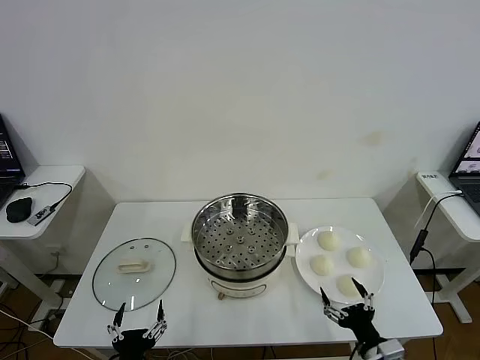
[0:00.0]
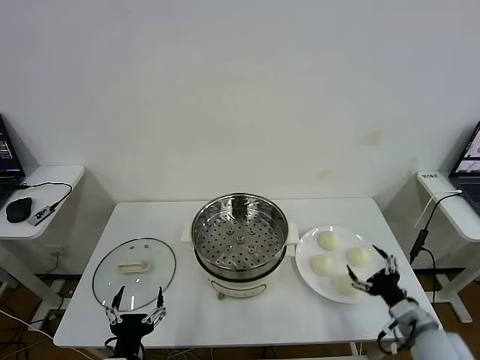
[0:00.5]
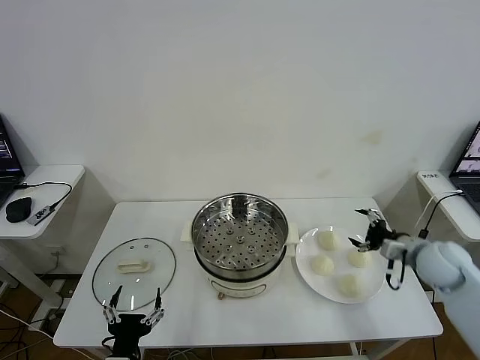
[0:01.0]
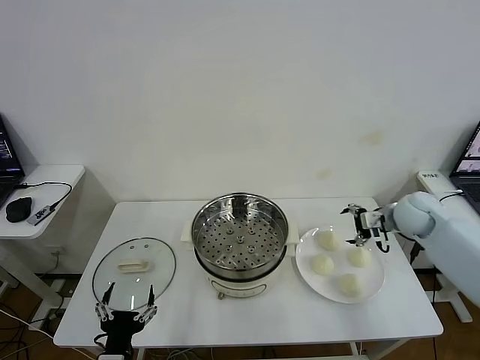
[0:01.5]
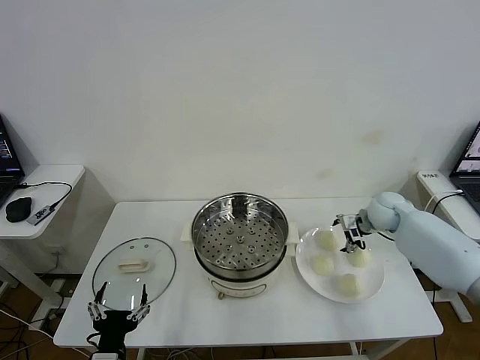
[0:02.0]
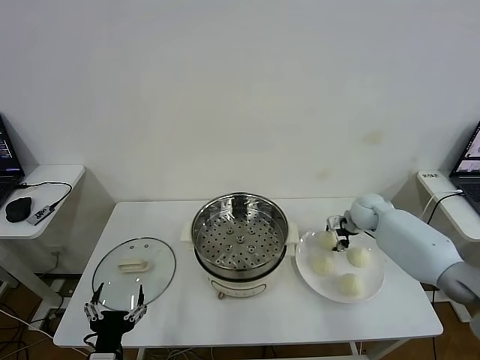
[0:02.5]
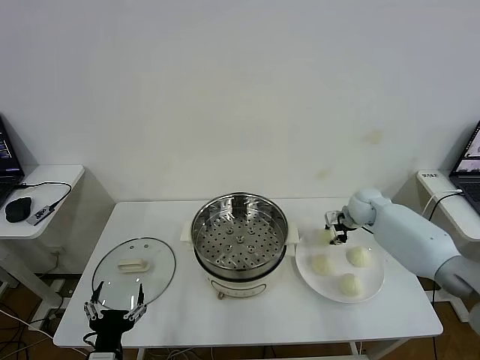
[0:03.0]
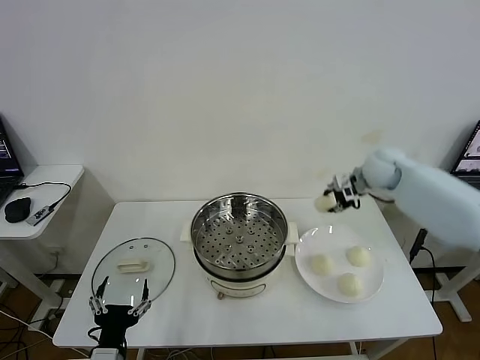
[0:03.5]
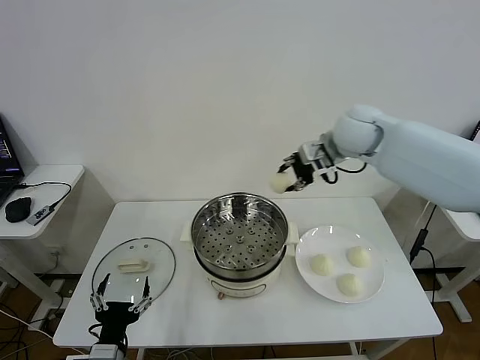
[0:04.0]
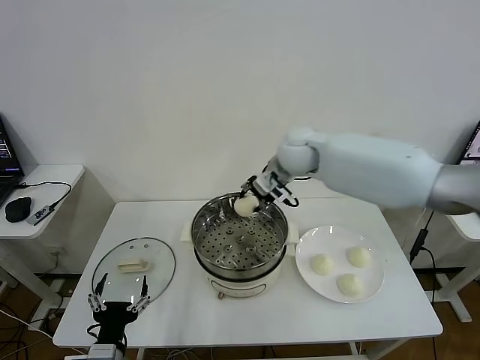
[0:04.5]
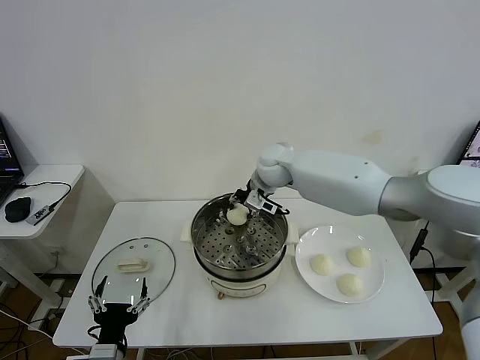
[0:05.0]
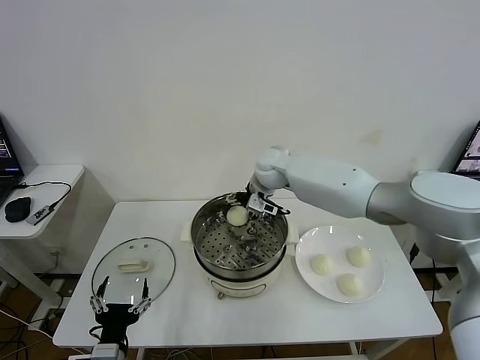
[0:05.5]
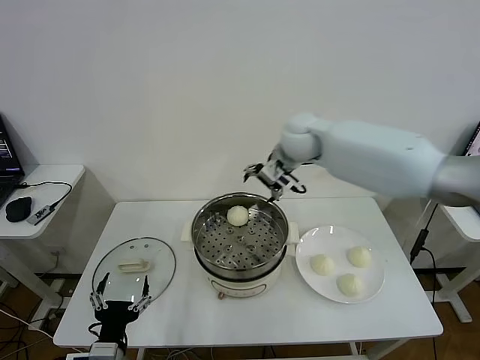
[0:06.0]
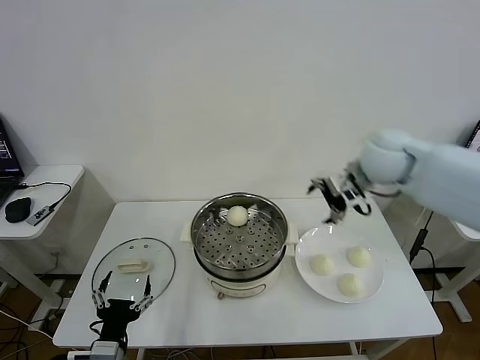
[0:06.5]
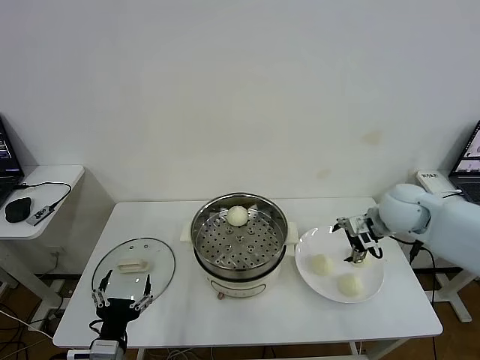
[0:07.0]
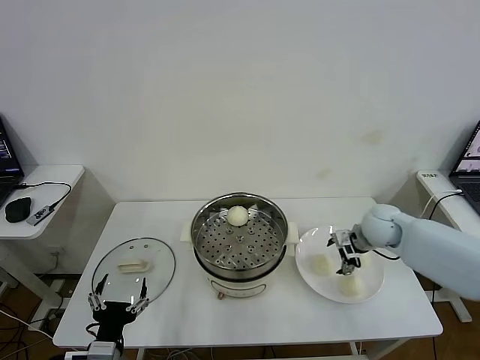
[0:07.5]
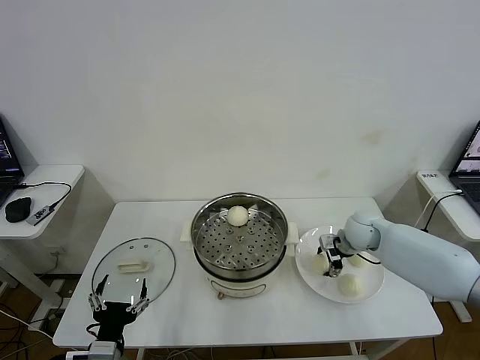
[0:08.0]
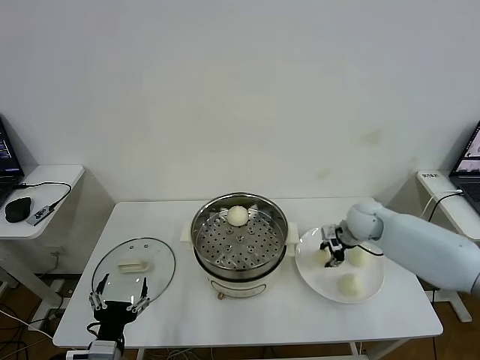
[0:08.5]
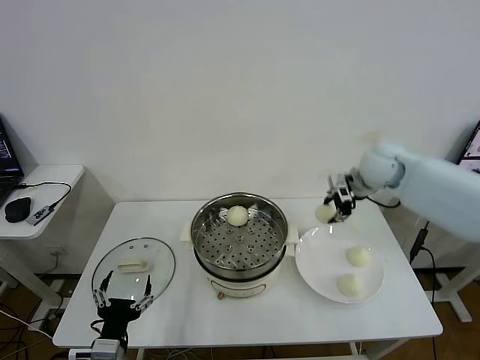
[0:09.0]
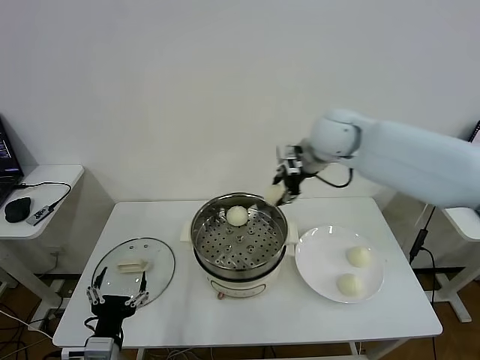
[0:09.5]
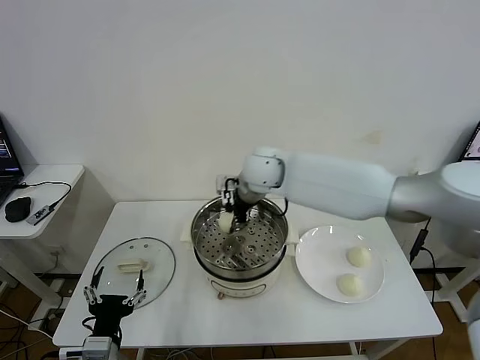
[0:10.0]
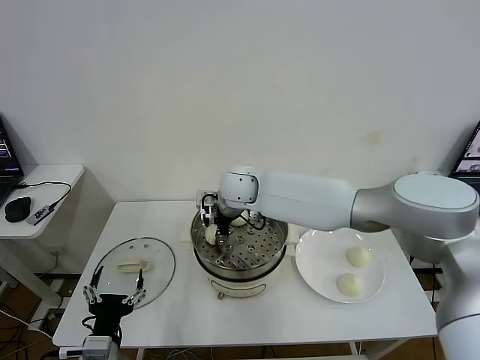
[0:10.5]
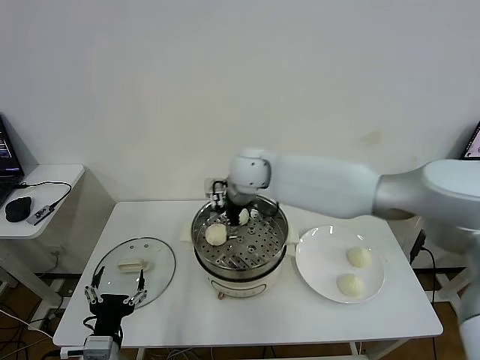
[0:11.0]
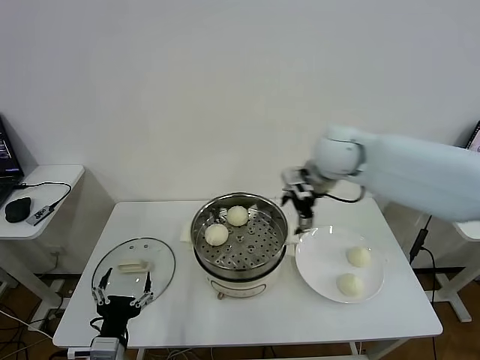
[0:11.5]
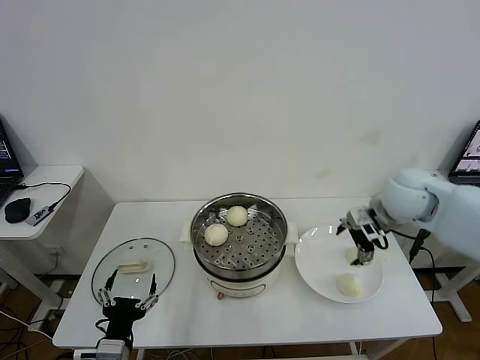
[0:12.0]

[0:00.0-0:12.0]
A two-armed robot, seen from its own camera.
Task of the whole recording: take steamed baozi put them in steamer then cover it.
Step, 0:00.0 to 0:02.5: Grasp the baozi in the plate with right gripper.
Step, 0:03.0 to 0:05.5: Place the baozi on the steamer with right gripper.
Step, 0:06.0 to 0:08.0: Grasp the baozi in the plate with right gripper.
Step, 0:08.5 to 0:10.5: Place the baozi on the steamer with right gripper.
0:02.0 to 0:04.0: The right gripper goes some 30 cm upward and to the left, and closes its fingers.
0:04.0 to 0:06.0: The right gripper reaches approximately 10 cm to the left, then returns, and opens up.
0:06.0 to 0:08.0: The right gripper goes some 30 cm downward and to the right, and closes up.
0:08.0 to 0:10.0: The right gripper travels to the left and upward by roughly 30 cm.
0:10.0 to 0:12.0: The right gripper is displaced to the right by approximately 30 cm, and opens up.

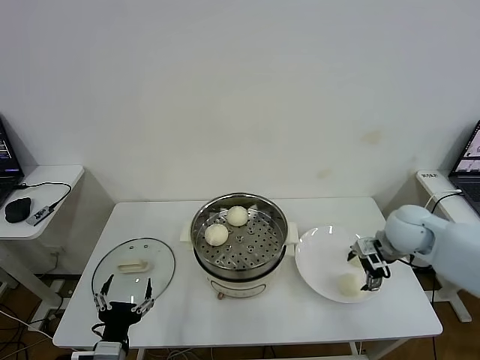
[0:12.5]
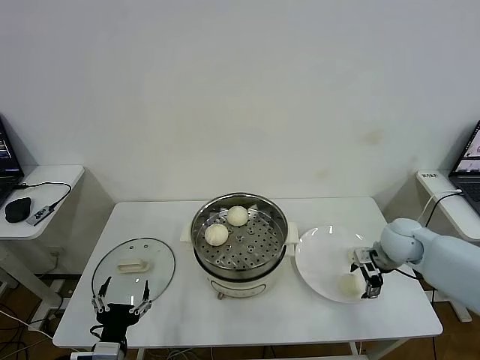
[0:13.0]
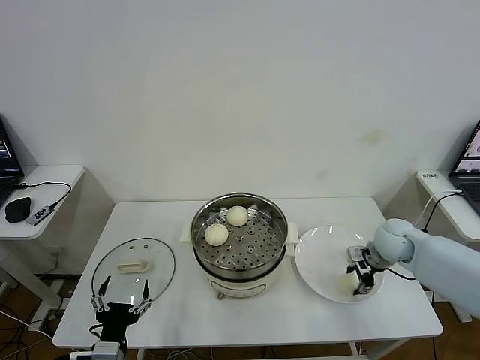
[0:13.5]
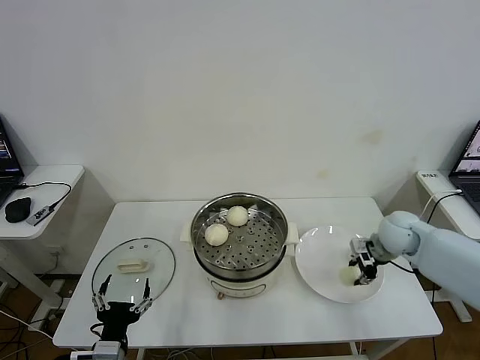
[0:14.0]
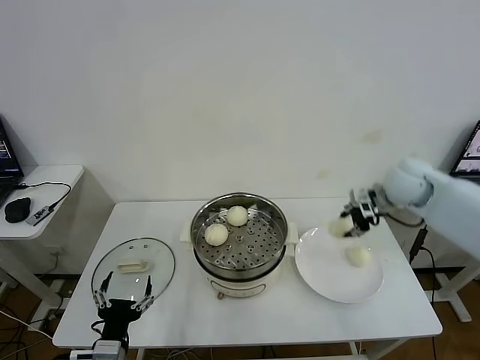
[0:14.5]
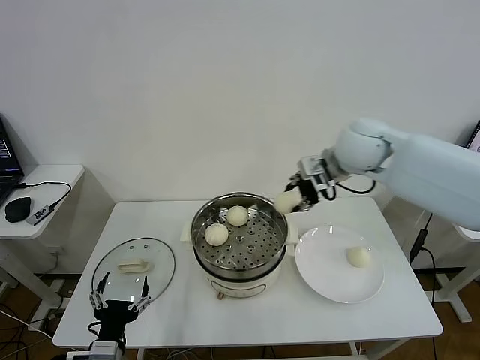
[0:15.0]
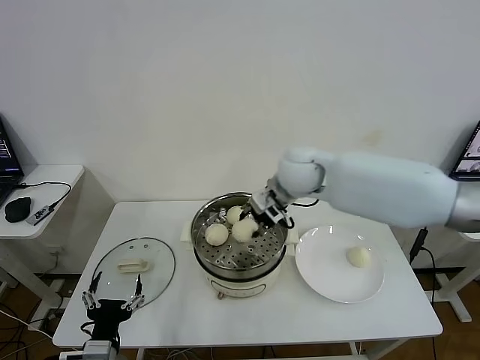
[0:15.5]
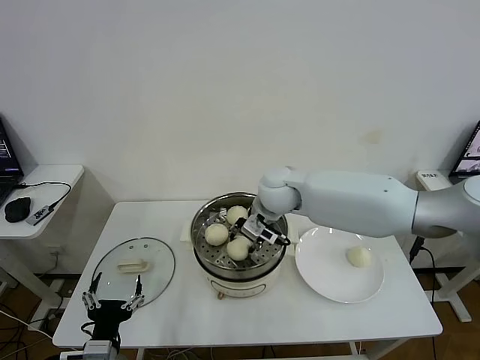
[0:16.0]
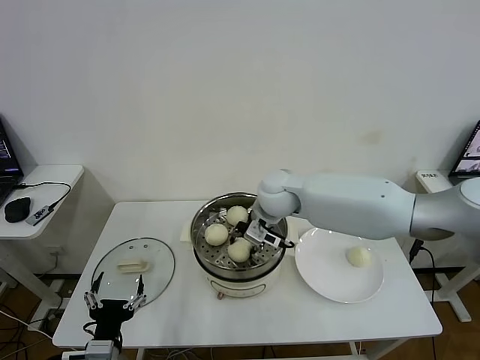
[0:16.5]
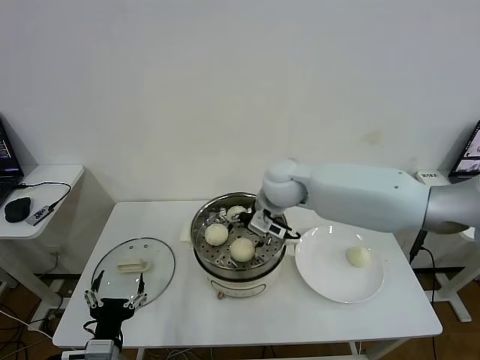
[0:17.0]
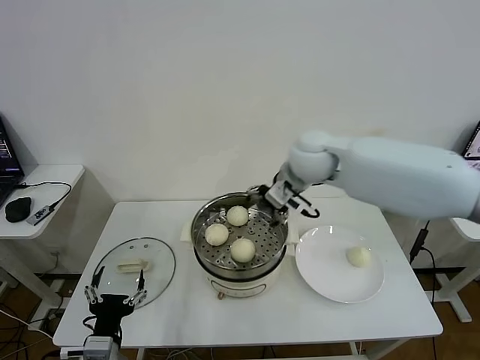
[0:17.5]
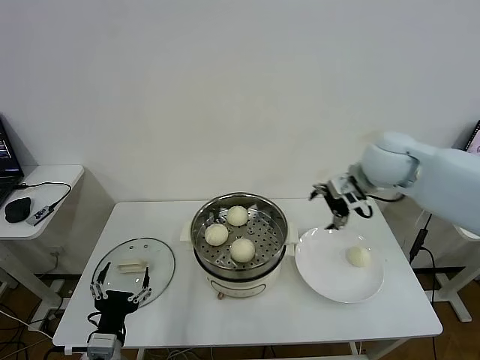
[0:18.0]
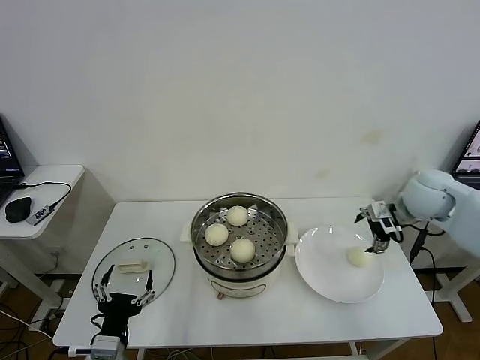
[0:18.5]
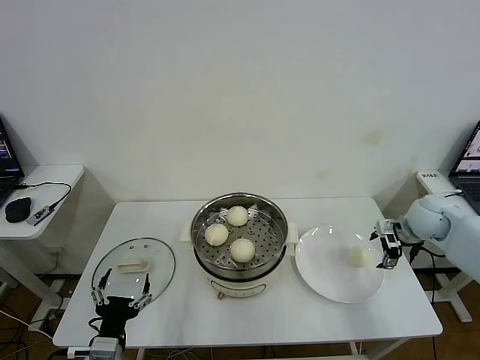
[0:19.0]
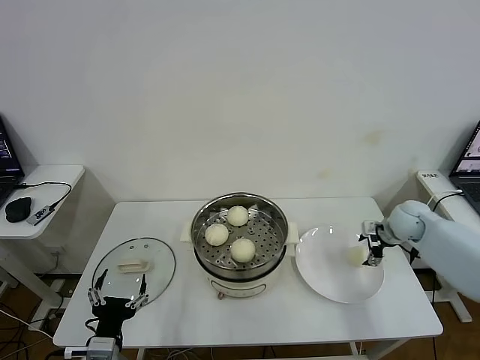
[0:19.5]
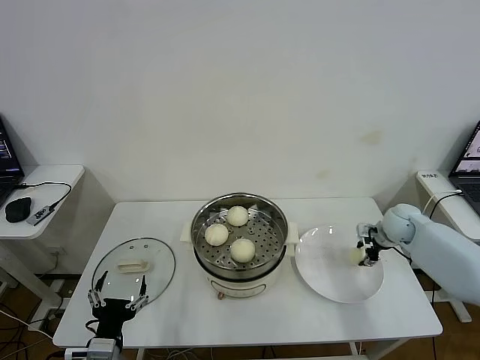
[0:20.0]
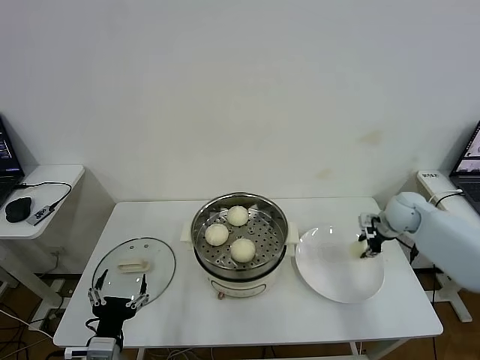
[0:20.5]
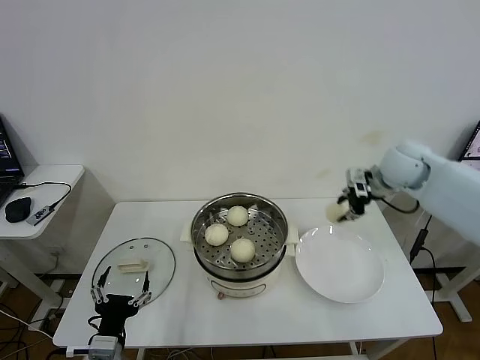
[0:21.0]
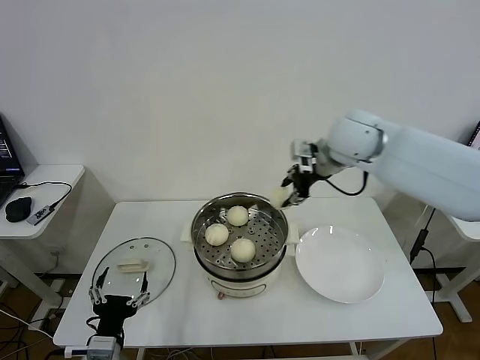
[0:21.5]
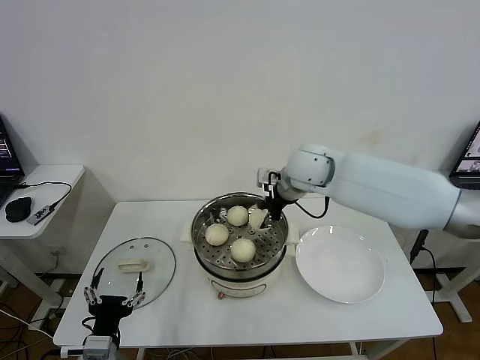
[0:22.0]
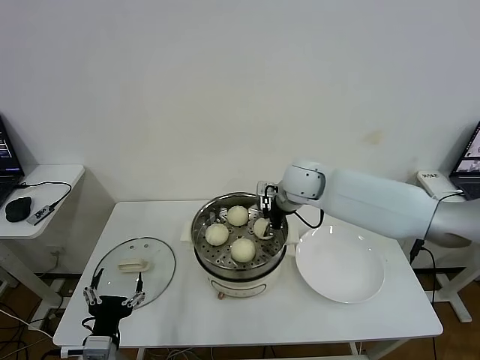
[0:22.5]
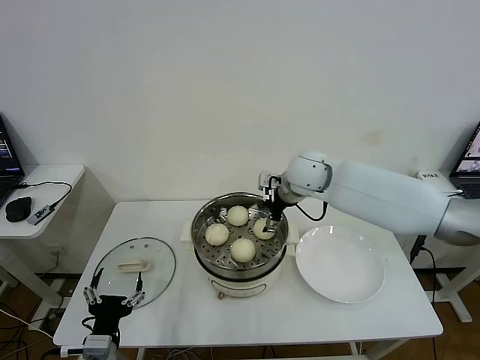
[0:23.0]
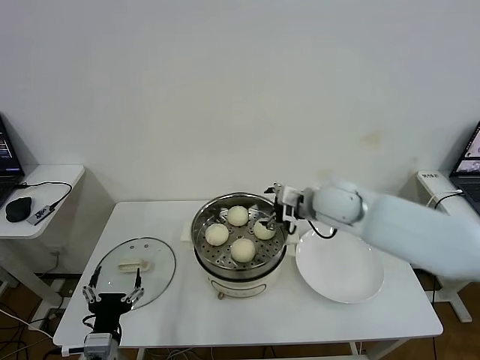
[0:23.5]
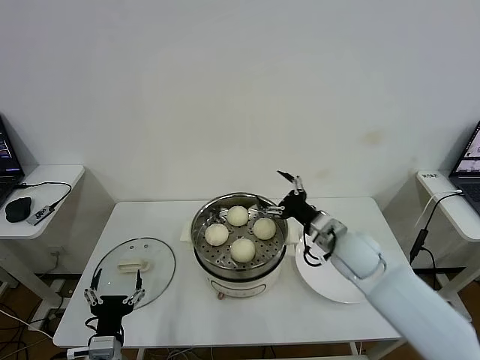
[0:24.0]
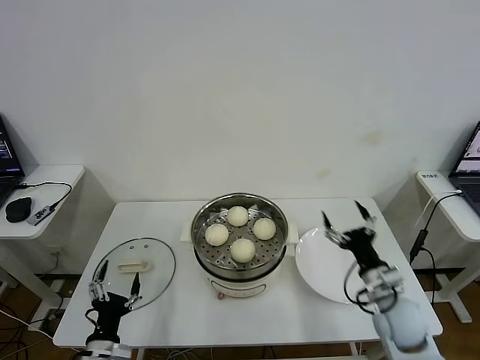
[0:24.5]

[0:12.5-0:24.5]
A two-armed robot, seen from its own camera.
Task of the whole recording: take steamed baozi put them in steamer then cover it.
Step, 0:14.0 to 0:16.5: Place the baozi on the steamer with right gripper.
Step, 0:17.5 to 0:20.0: Grasp the baozi in the plate with right gripper.
Step, 0:20.5 to 0:22.5: Place the baozi on the steamer with right gripper.
0:12.5 to 0:14.5: The right gripper is displaced upward and forward by some 15 cm, and closes.
0:14.5 to 0:16.5: The right gripper shifts about 25 cm to the left.
0:16.5 to 0:18.5: The right gripper goes roughly 30 cm to the right, and opens its fingers.
0:18.5 to 0:20.5: The right gripper moves downward and forward, some 10 cm, and closes up.
0:20.5 to 0:22.5: The right gripper moves to the left, approximately 25 cm.
0:22.5 to 0:24.5: The left gripper goes approximately 5 cm downward; the right gripper is displaced backward, to the right and downward by some 35 cm, and opens up.

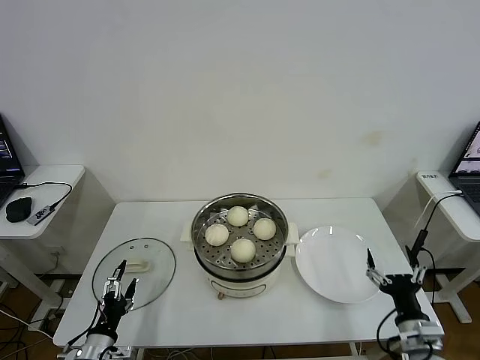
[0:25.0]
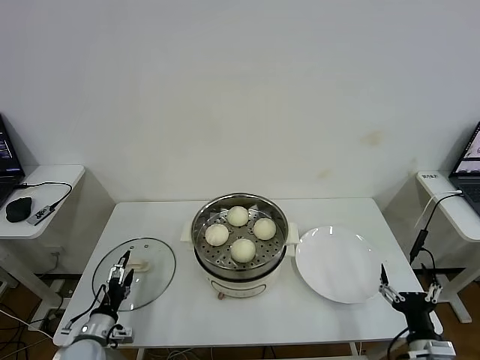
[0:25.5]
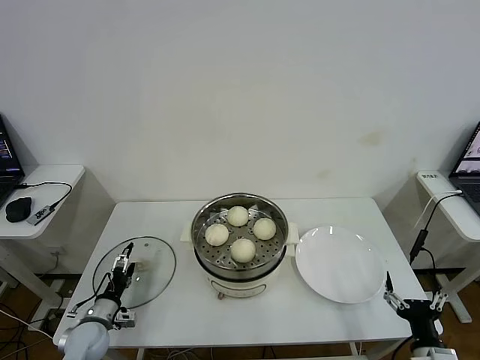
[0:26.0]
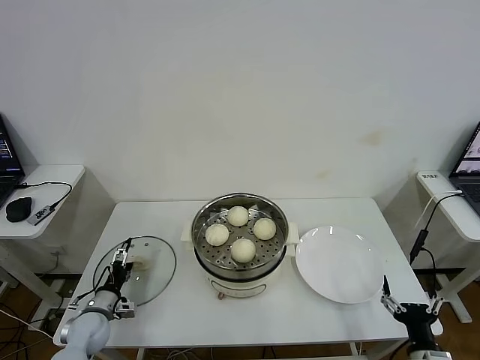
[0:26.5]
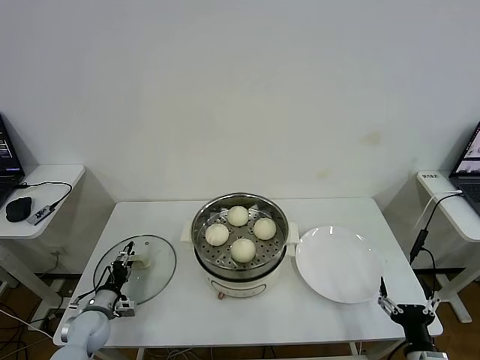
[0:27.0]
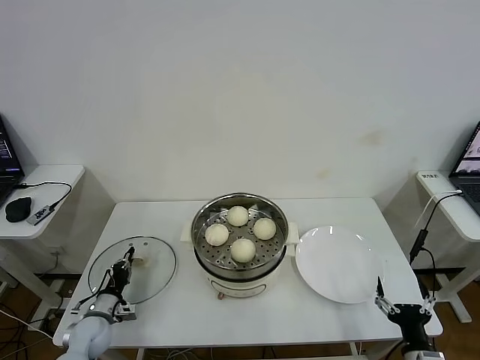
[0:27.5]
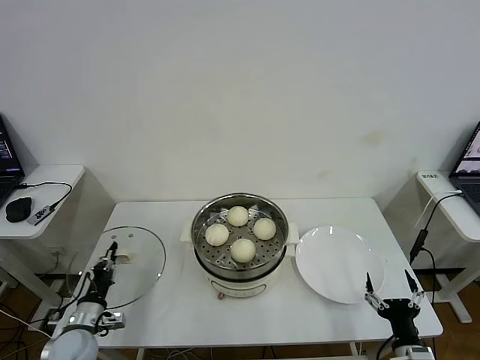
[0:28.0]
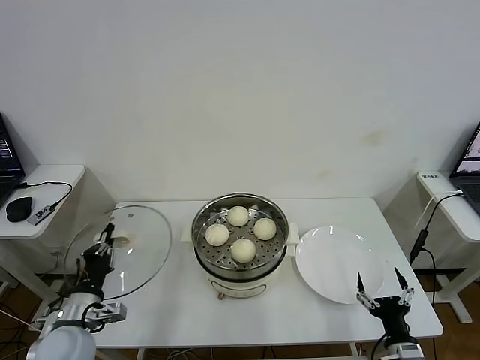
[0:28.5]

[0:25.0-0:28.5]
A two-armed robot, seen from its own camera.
Task of the whole recording: take steamed baozi put them in steamer then cover it.
Step, 0:25.0 to 0:27.5: Grasp the pot lid with left gripper.
0:25.0 to 0:27.0: The right gripper goes approximately 5 cm backward. Meanwhile the left gripper heads forward, covering about 15 cm, and closes.
0:27.0 to 0:28.5: The left gripper moves upward and backward, roughly 15 cm, and closes up.
